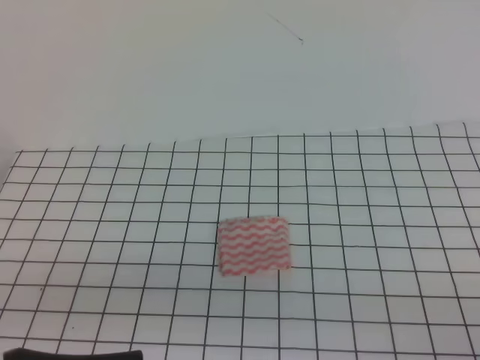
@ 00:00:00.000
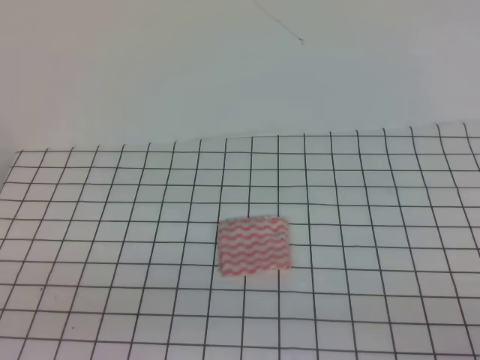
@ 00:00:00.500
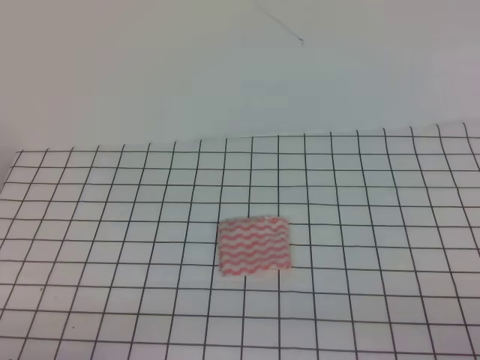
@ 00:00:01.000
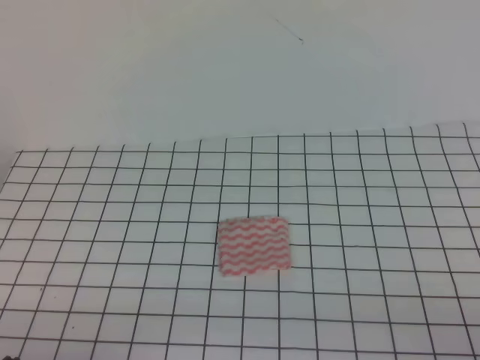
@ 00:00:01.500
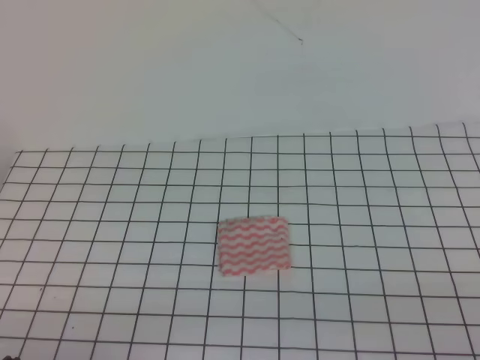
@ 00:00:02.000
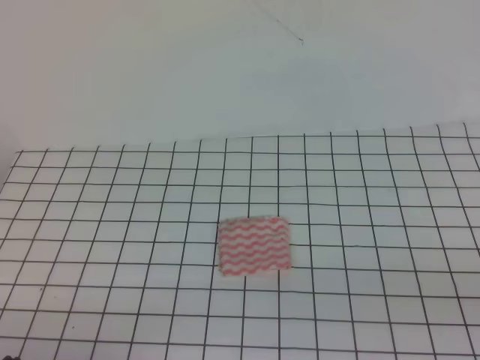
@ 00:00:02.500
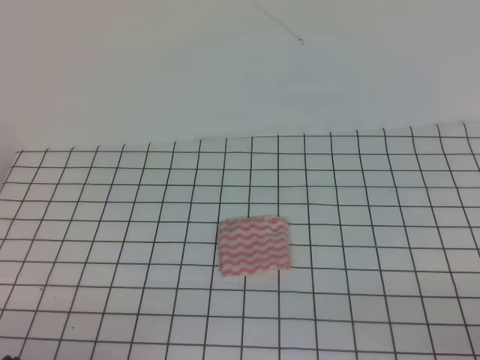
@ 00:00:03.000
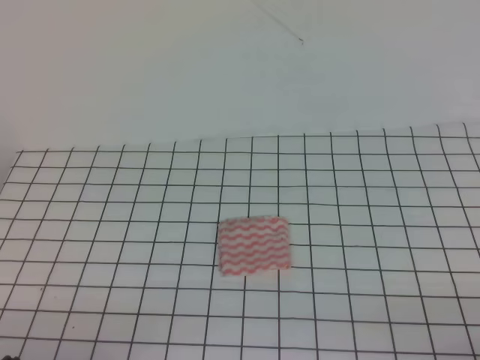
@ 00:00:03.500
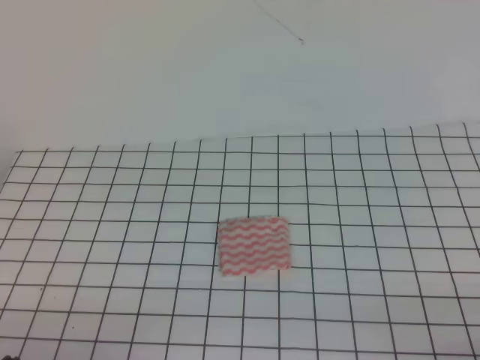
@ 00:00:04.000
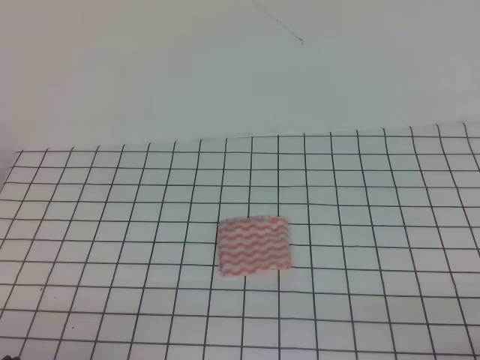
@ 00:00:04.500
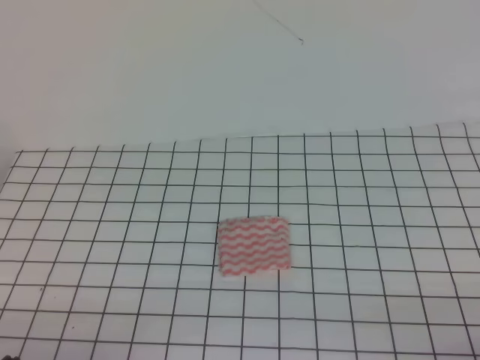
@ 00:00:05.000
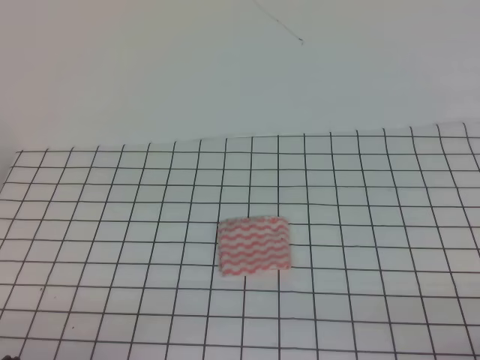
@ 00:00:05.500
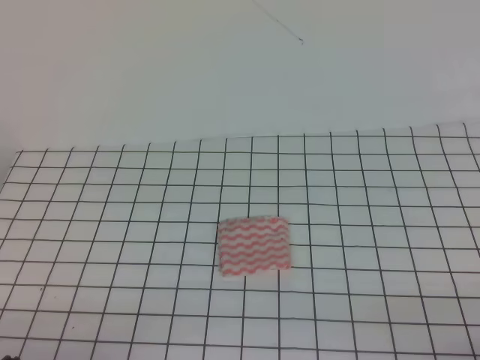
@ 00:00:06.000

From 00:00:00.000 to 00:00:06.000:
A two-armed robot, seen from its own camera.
From 00:00:00.000 to 00:00:02.000: The left gripper goes some 15 cm downward and to the left.
From 00:00:04.000 to 00:00:06.000: The two grippers keep their place.
